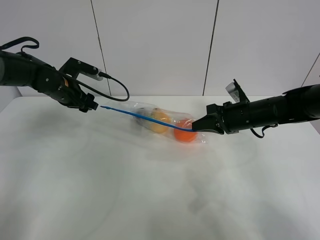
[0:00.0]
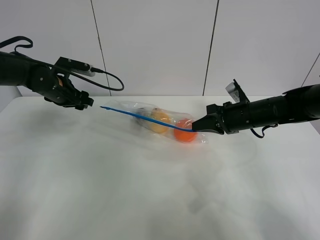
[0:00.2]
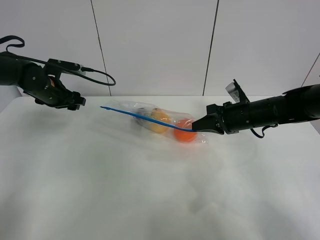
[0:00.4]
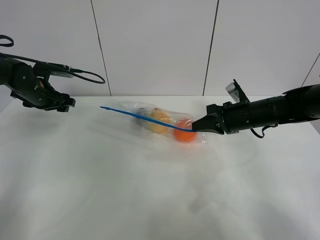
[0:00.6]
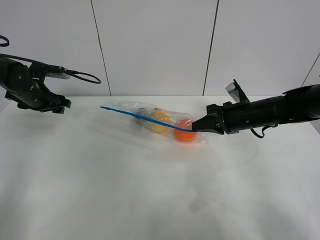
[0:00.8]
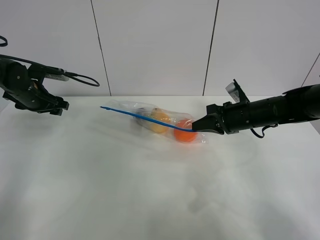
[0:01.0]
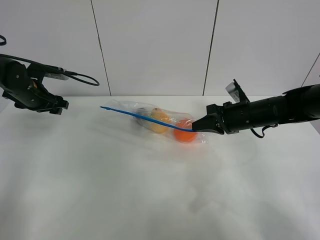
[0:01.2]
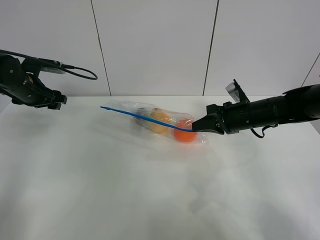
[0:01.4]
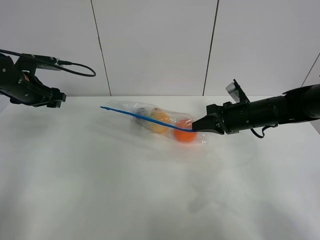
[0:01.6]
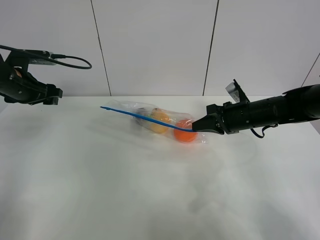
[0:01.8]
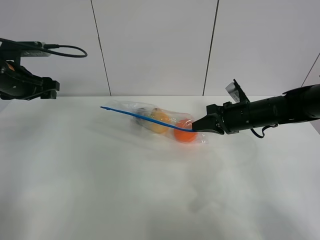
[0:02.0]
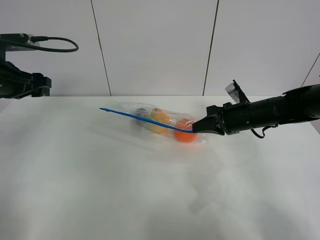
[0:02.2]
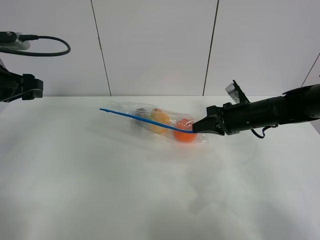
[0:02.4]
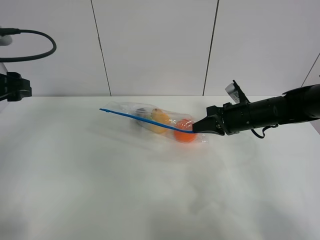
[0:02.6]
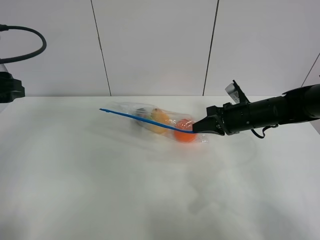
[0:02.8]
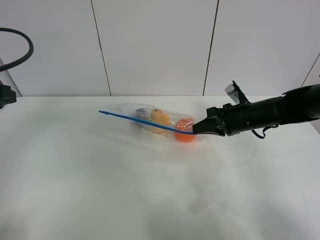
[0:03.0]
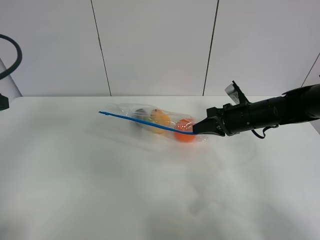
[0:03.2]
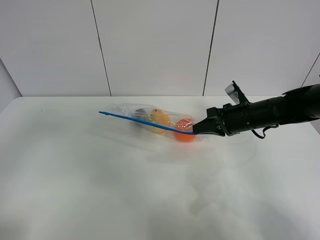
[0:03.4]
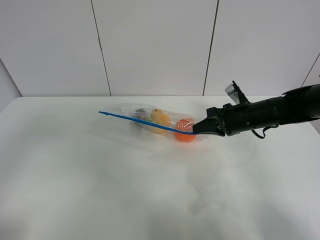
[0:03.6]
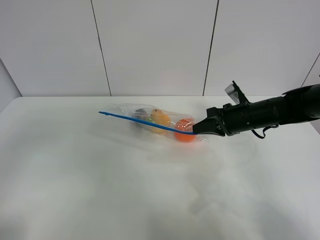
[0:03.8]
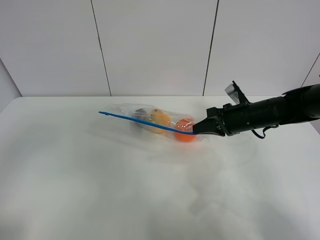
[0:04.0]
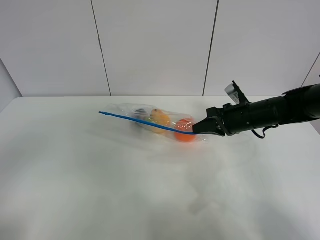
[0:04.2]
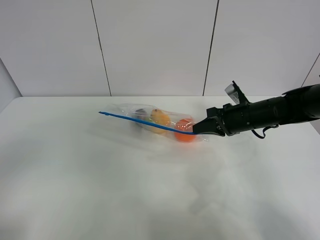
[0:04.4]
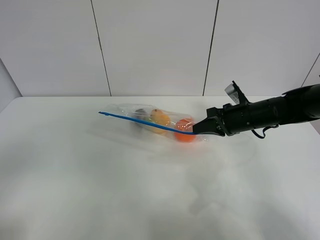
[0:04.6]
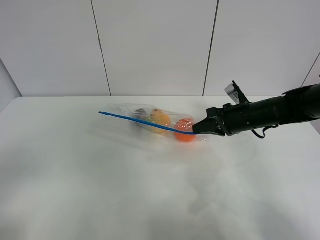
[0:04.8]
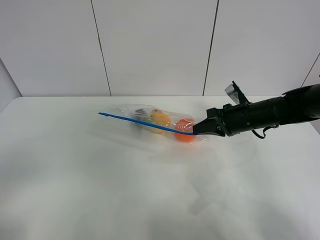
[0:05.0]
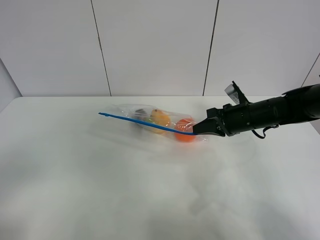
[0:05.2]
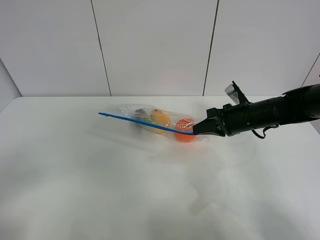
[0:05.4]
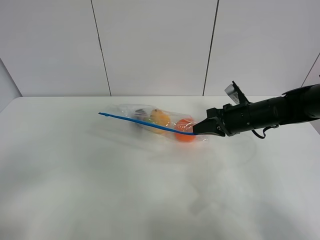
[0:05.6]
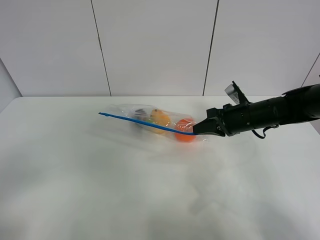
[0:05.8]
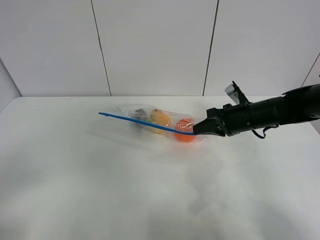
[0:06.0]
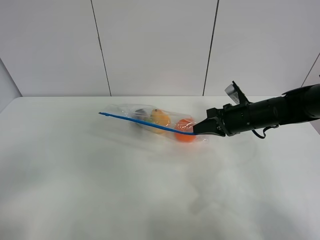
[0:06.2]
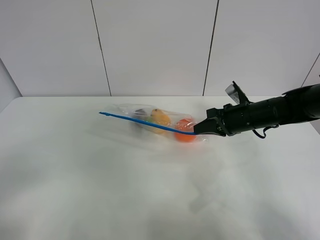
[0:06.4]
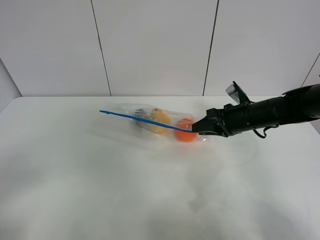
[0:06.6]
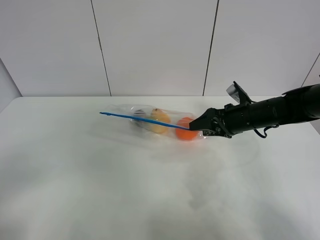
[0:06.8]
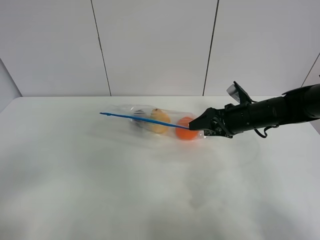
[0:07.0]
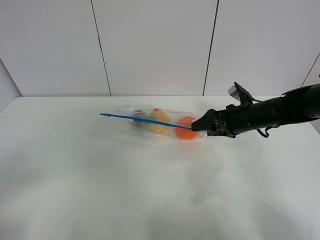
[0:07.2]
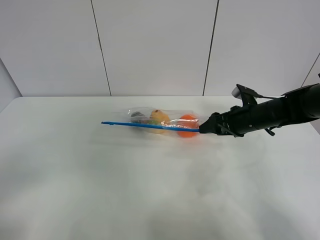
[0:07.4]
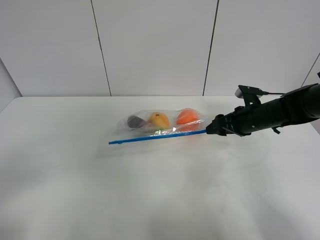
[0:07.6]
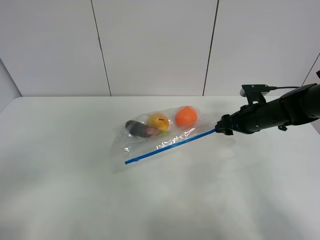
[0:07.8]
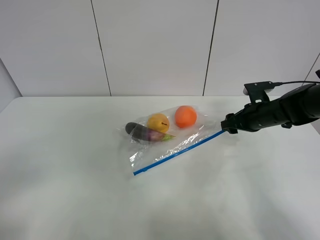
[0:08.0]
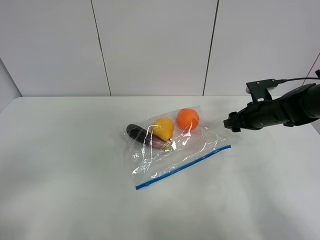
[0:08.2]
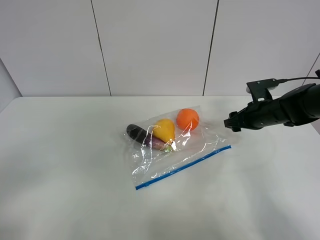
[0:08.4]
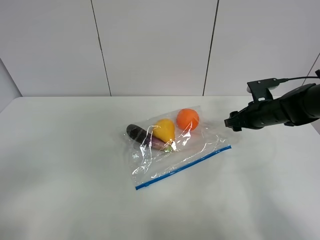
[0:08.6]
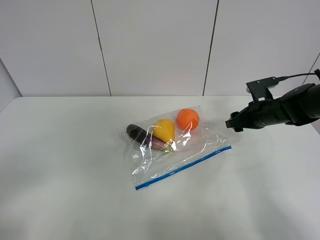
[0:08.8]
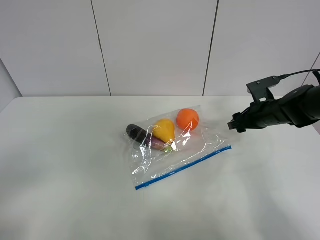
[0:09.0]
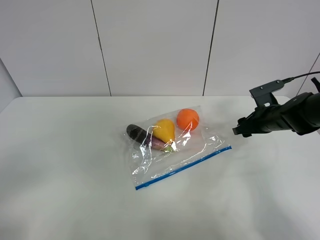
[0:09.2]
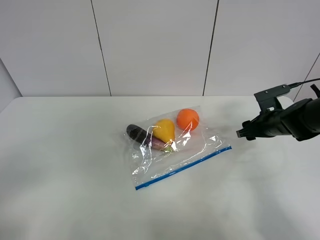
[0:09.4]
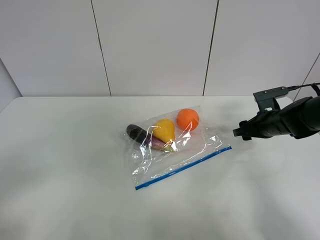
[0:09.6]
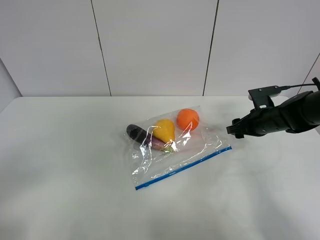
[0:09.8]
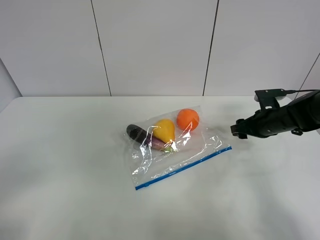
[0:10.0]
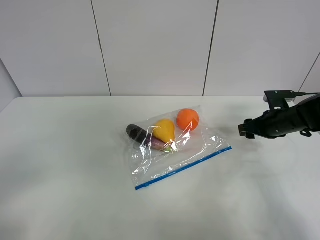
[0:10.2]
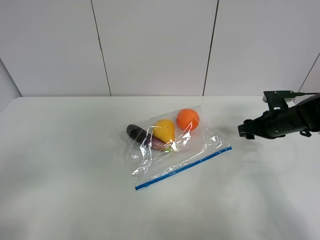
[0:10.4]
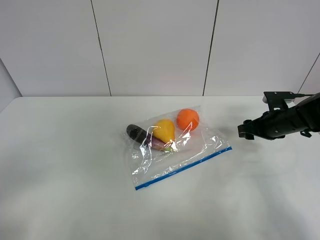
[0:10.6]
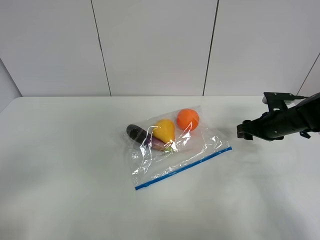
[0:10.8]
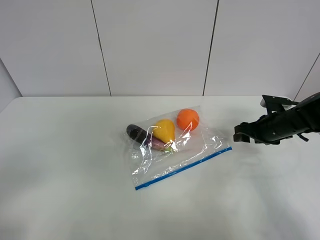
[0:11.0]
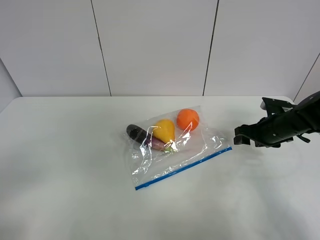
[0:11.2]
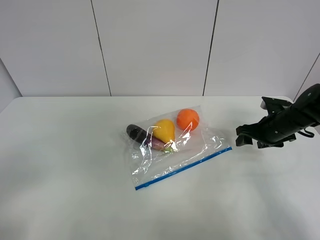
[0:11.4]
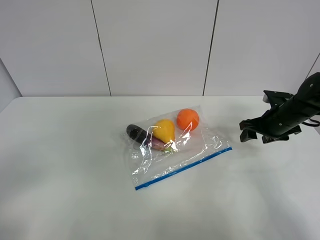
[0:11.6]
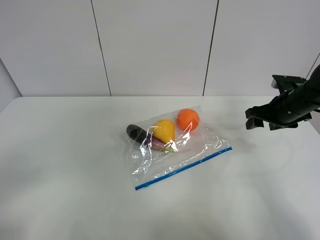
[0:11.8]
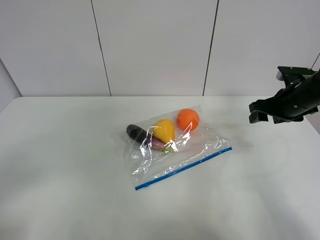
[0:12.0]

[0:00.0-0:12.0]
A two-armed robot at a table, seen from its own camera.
0:00.0 to 0:01.6: The left gripper moves to the left, about 10 cm.
0:01.6 to 0:03.0: The left gripper moves backward and upward, some 20 cm.
0:03.0 to 0:04.4: The left gripper travels backward by some 20 cm.
0:06.0 to 0:07.6: The right gripper opens.
0:09.0 to 0:10.4: The grippers stay close to where they were, moving slightly.
0:10.4 to 0:12.0: The right gripper moves upward, roughly 10 cm.

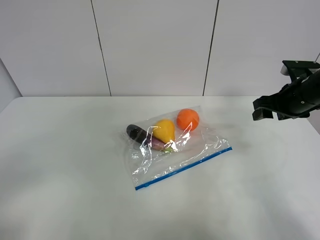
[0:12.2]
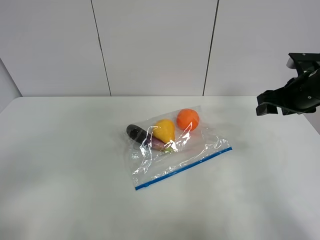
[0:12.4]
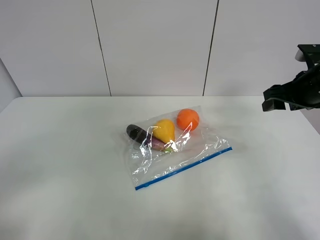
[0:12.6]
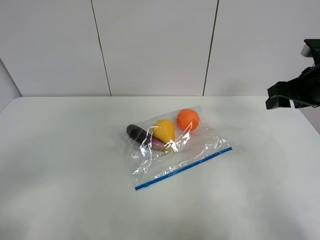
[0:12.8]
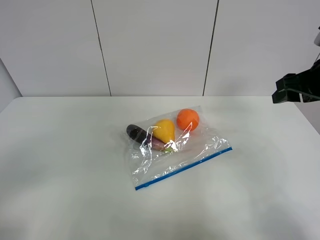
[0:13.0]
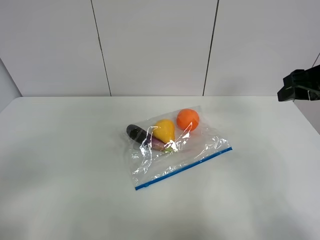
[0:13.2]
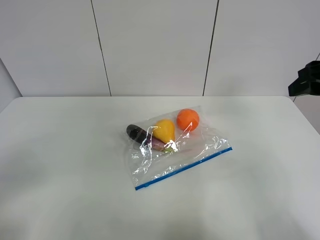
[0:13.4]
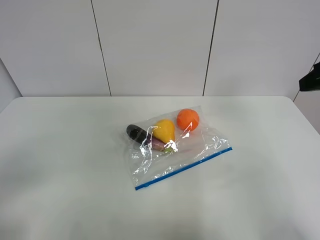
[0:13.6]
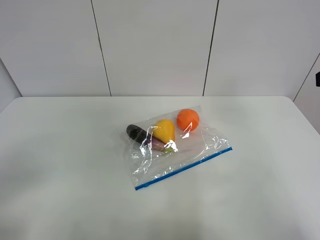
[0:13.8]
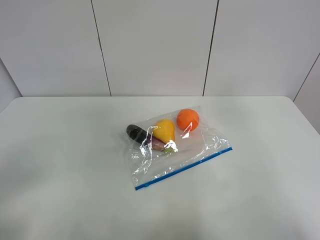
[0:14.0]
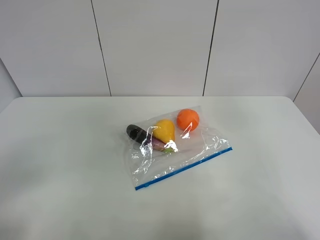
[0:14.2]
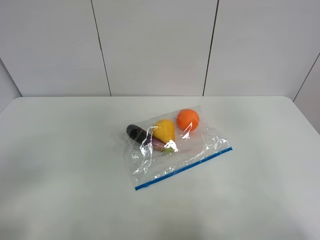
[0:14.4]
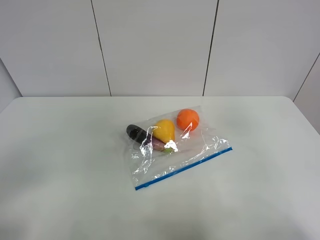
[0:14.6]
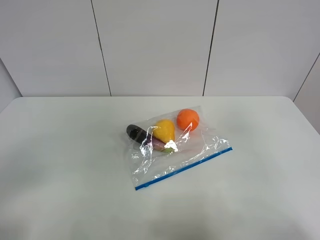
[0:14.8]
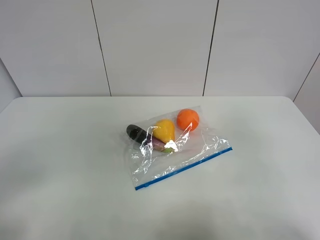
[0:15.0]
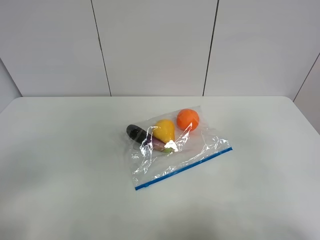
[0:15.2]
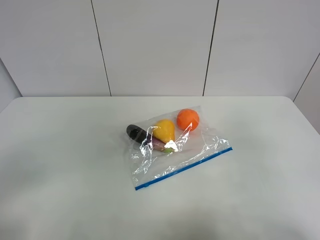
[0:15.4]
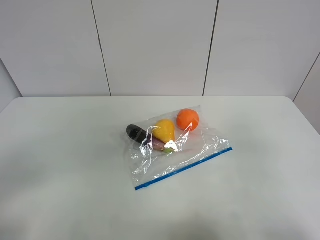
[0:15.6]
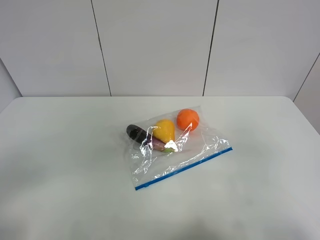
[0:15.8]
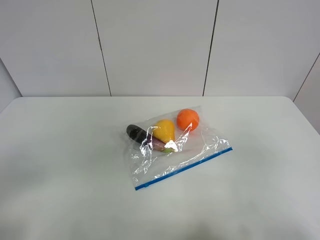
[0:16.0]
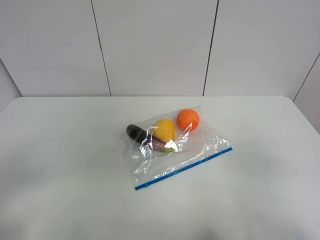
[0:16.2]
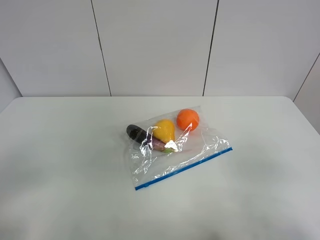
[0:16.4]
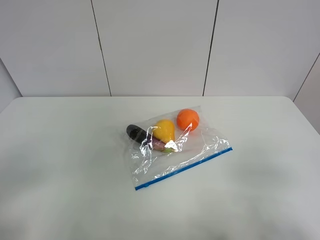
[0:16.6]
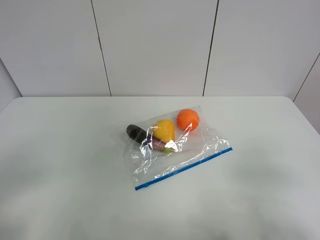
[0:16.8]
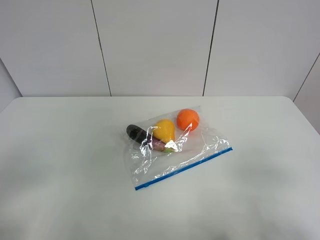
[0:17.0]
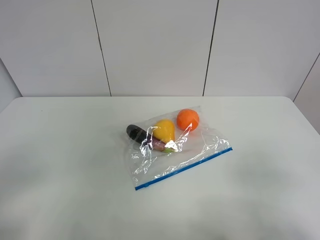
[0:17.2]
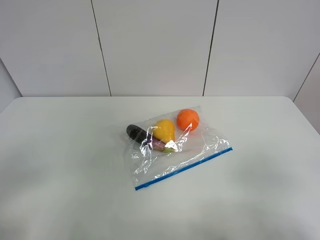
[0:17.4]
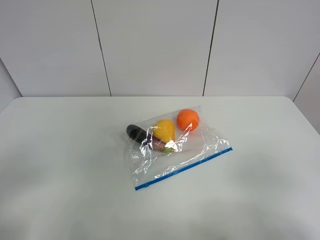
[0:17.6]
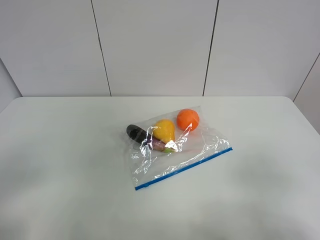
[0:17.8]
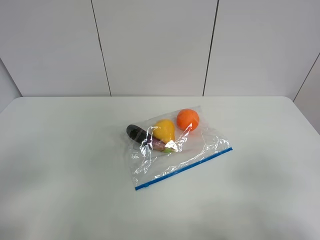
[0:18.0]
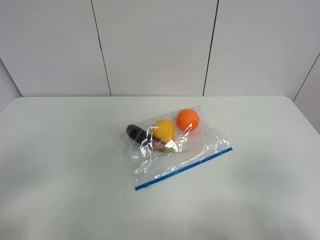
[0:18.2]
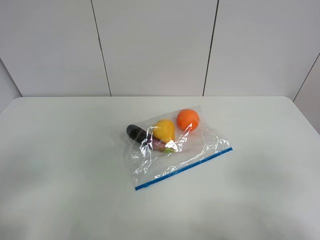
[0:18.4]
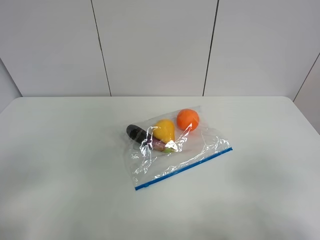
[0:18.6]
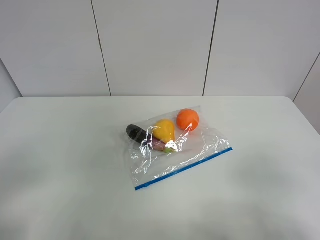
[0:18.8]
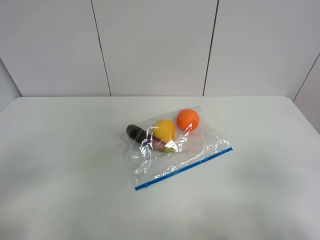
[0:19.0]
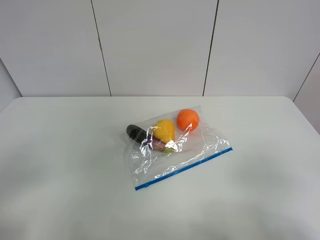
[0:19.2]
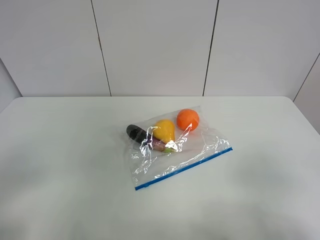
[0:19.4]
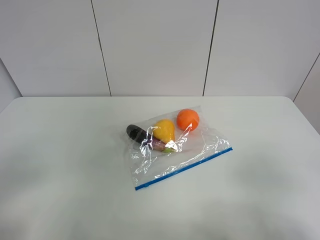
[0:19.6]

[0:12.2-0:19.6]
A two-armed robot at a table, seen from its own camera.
0:12.2 to 0:13.6: The right gripper travels upward and backward by about 20 cm.
0:13.6 to 0:15.2: The right gripper travels backward by approximately 15 cm.
0:15.2 to 0:16.6: The right gripper shifts about 10 cm downward and backward.
0:18.2 to 0:19.6: Neither gripper changes place.
